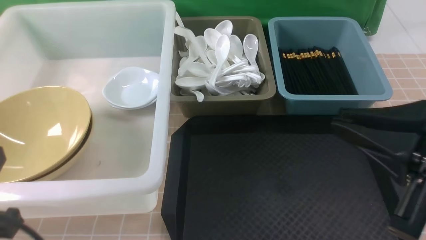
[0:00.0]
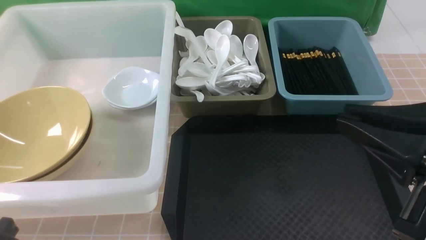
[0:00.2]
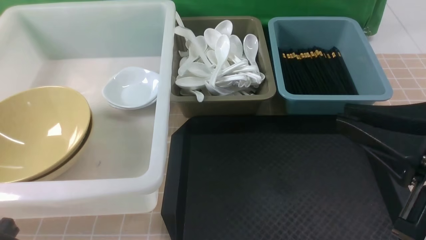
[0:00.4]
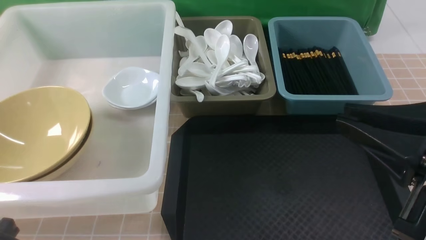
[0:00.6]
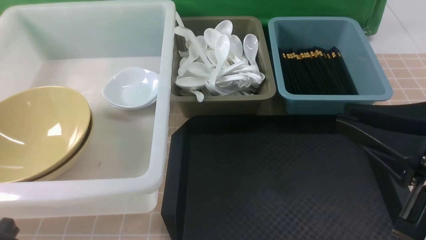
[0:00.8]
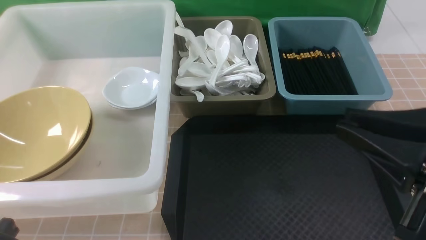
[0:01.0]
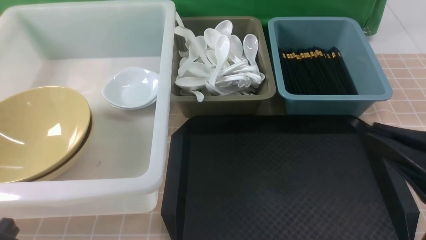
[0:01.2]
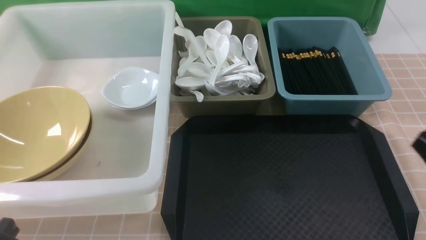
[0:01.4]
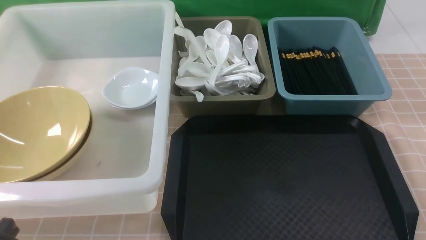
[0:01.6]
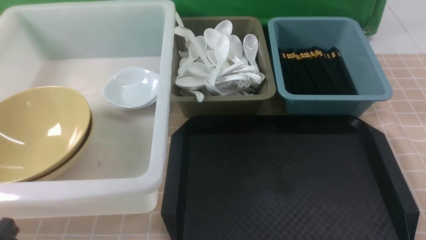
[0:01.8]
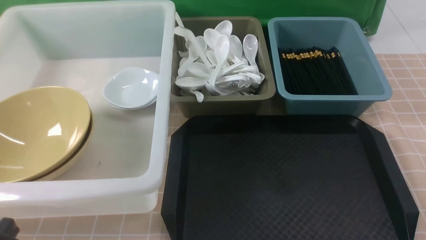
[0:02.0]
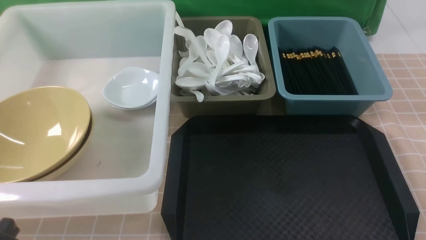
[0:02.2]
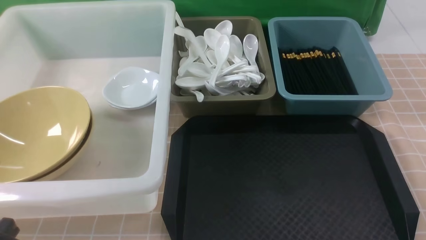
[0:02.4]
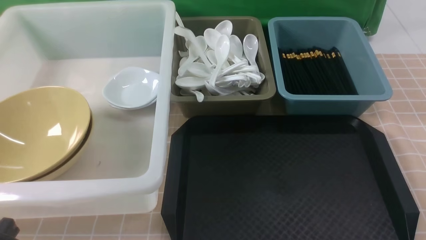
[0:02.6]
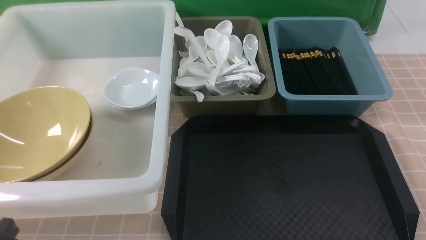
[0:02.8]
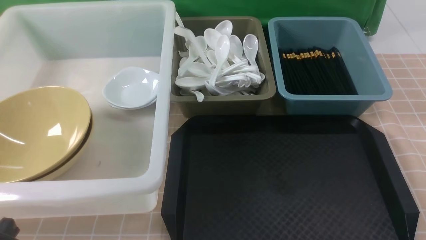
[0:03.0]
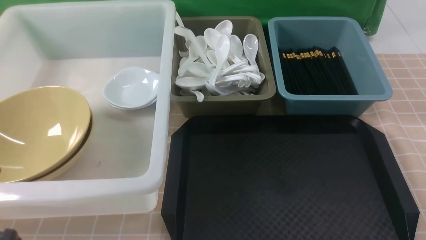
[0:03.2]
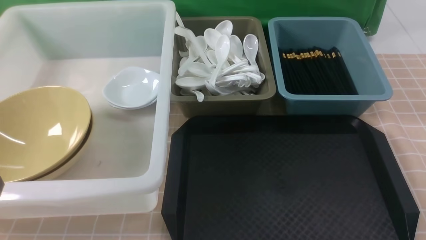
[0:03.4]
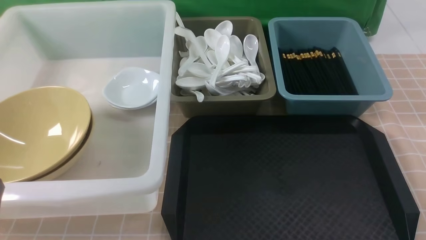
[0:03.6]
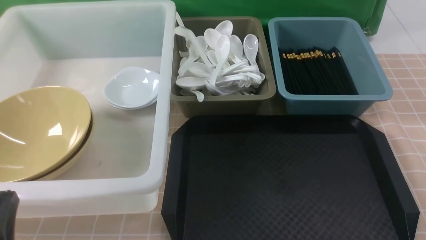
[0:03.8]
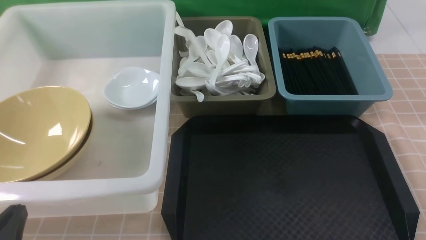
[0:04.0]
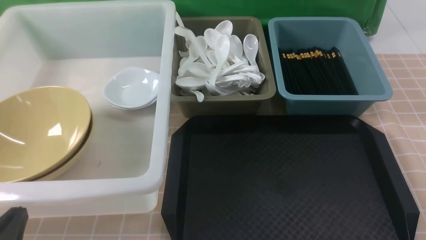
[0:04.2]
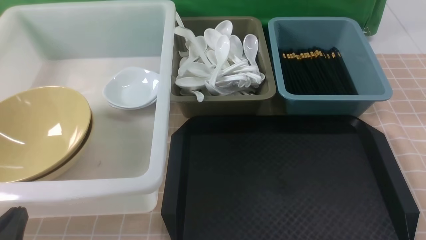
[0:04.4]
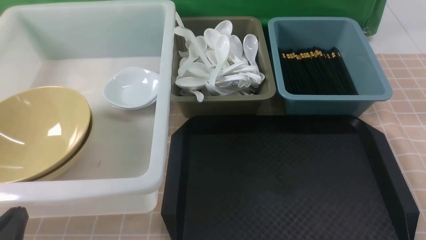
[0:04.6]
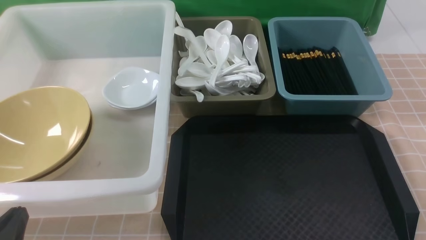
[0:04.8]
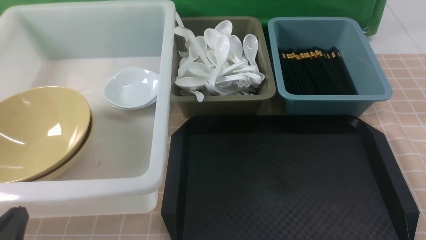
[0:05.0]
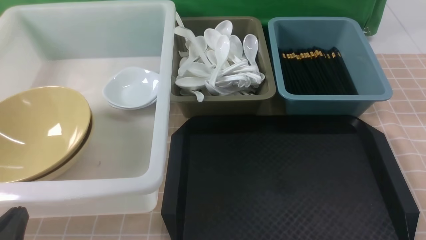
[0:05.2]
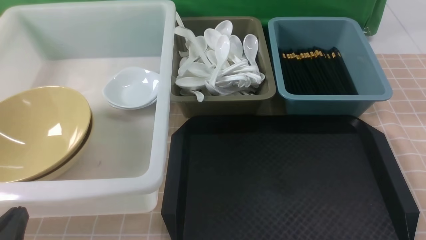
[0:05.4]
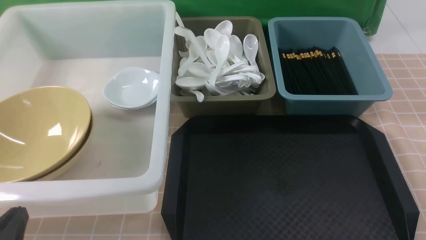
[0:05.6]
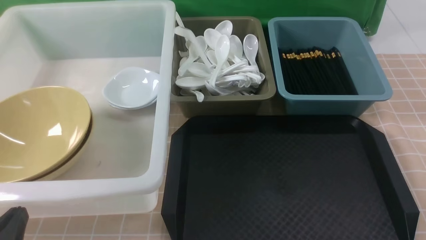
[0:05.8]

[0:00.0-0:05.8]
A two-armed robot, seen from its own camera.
Task of the whole recording: on brown table put chopsticks spoon bowls plates into blue grey white boxes.
0:00.0 to 0:01.4: The right gripper travels downward and to the right by roughly 10 cm.
0:04.4 to 0:05.8: The two grippers keep their place.
